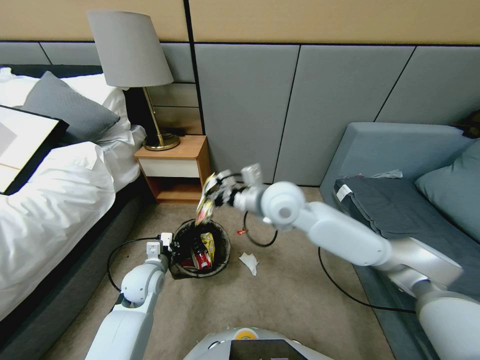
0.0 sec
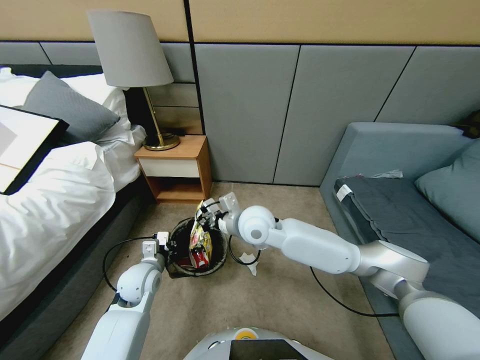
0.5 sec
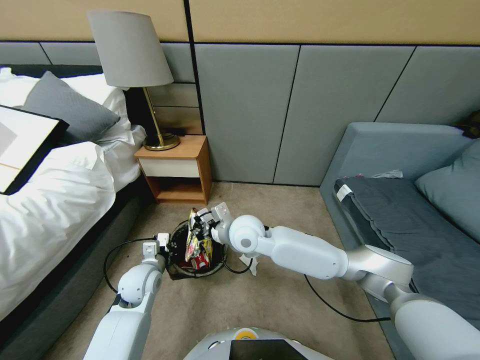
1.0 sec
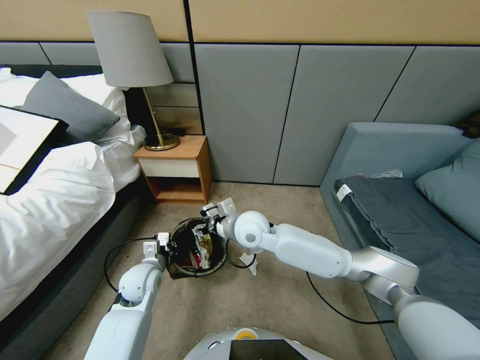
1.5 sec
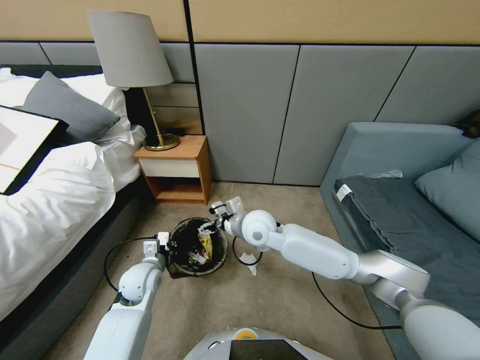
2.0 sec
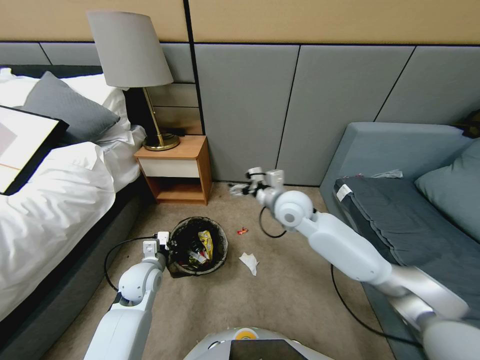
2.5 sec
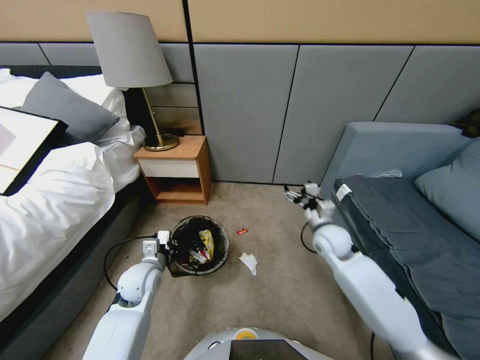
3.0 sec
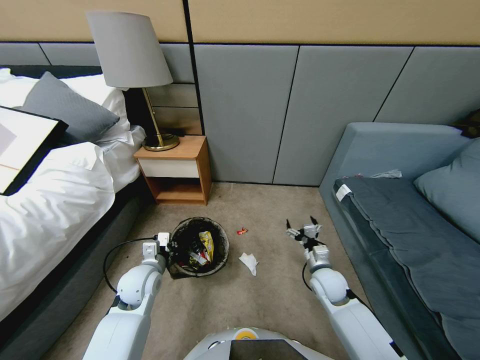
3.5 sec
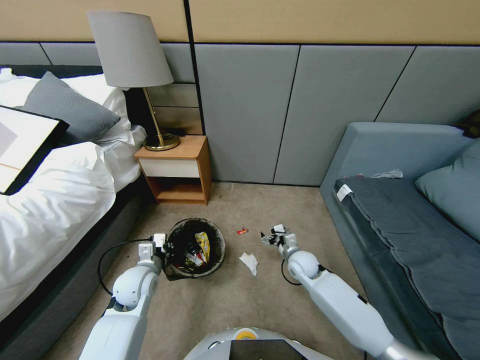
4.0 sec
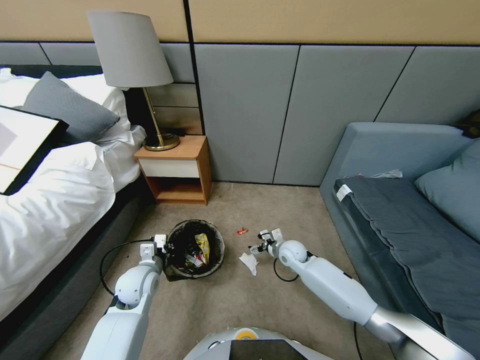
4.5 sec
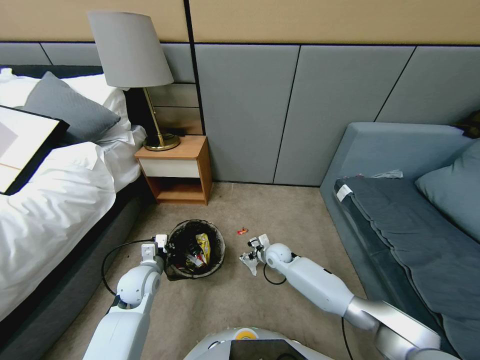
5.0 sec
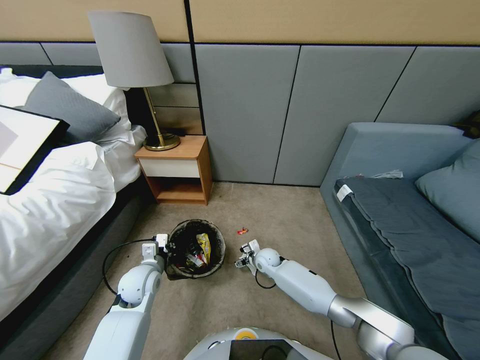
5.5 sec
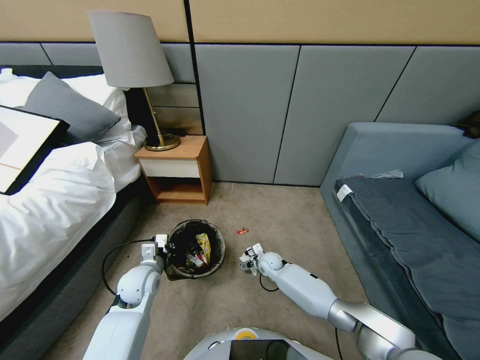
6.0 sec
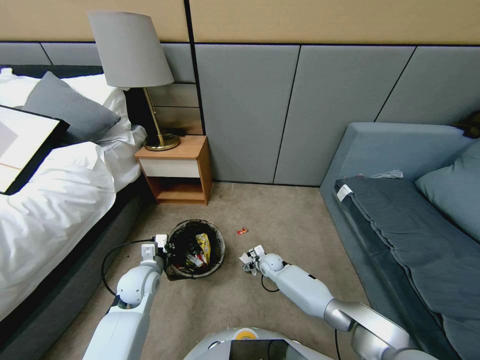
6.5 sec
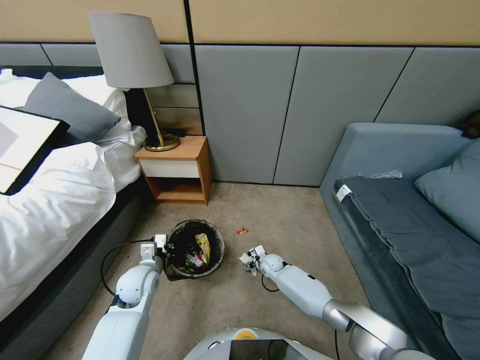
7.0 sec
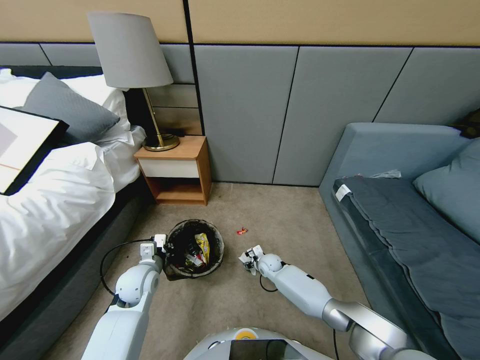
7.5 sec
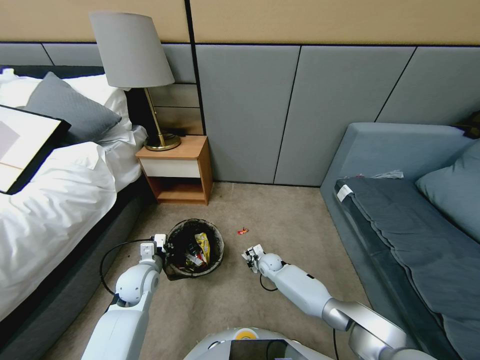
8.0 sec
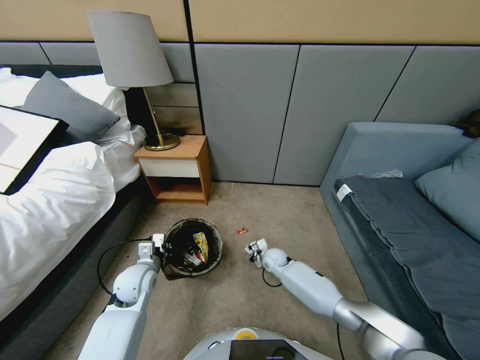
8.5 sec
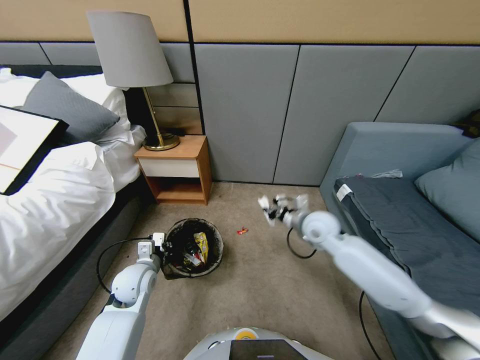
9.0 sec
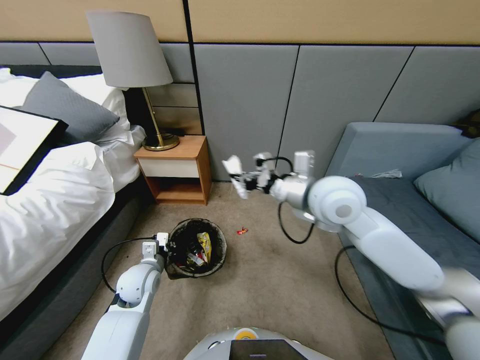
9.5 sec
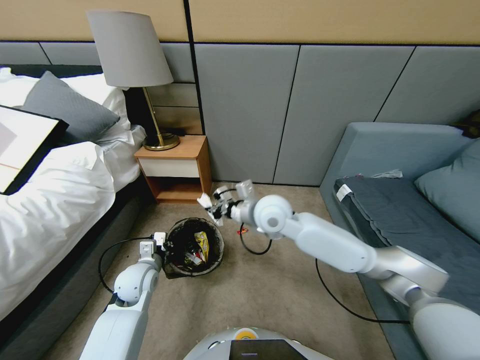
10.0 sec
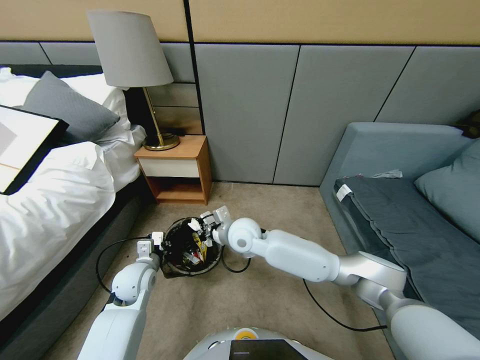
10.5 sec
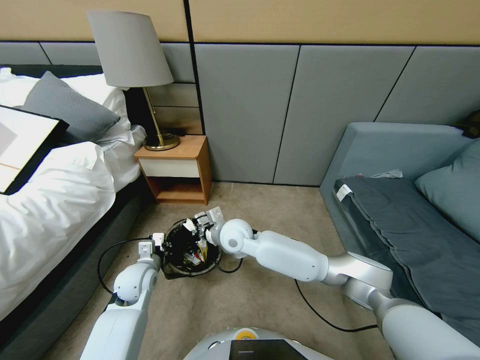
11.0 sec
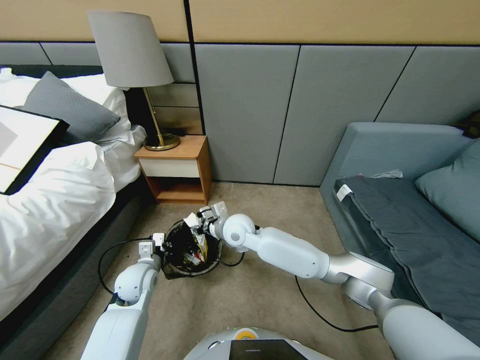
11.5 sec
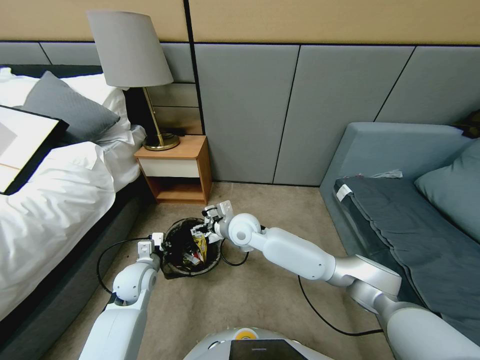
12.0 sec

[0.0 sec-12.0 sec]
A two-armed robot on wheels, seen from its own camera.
Task of the whole recording: Pick up the trash bin, then pick up the garbage from the floor and place it into the trash bin.
0.0 sec to 2.0 sec: The right gripper heads downward, covering some 10 cm, and opens its fingers.
2.0 sec to 4.0 sec: The right gripper travels downward and to the right by roughly 25 cm.
4.0 sec to 6.0 sec: The right gripper travels downward and to the left by some 15 cm.
6.0 sec to 8.0 sec: The right gripper closes.
8.0 sec to 10.0 sec: The right gripper shifts about 35 cm upward.
10.0 sec to 12.0 sec: The right gripper shifts approximately 10 cm downward and to the left, and opens its fingers.

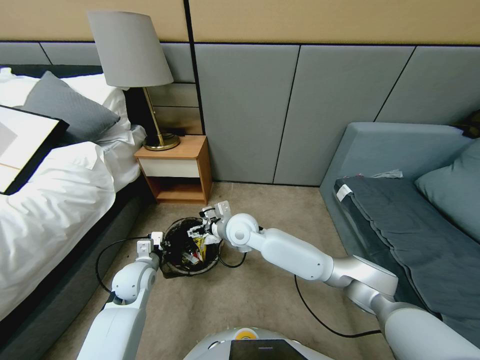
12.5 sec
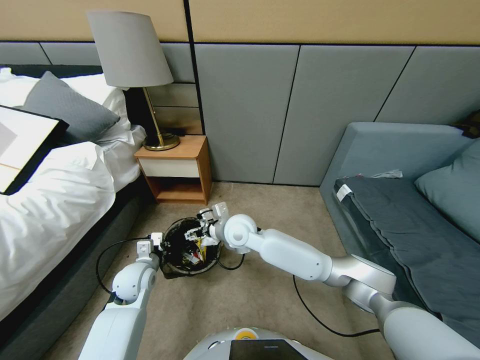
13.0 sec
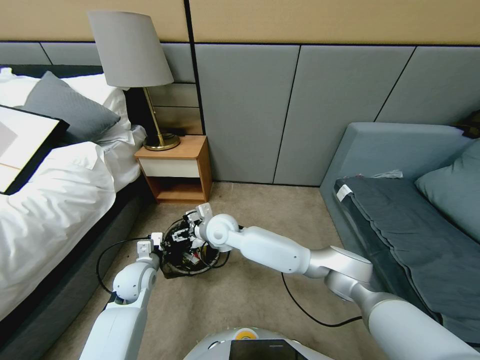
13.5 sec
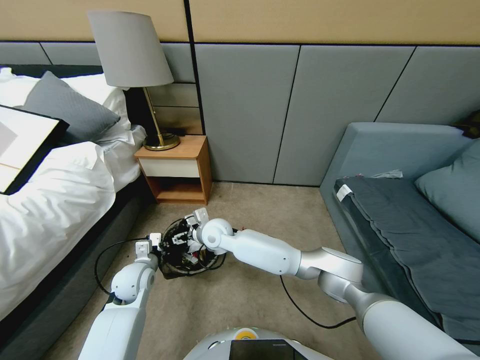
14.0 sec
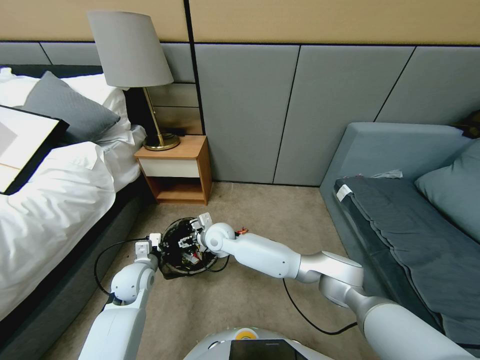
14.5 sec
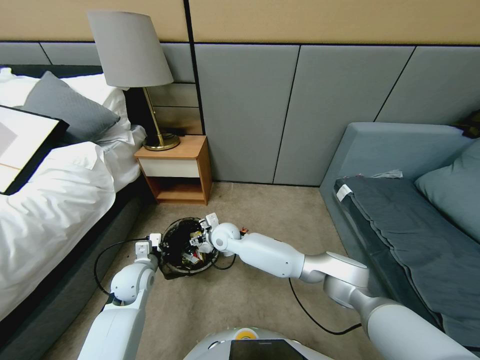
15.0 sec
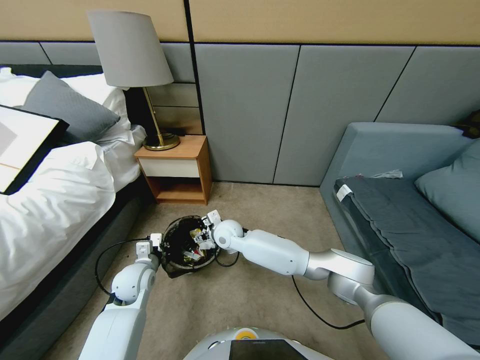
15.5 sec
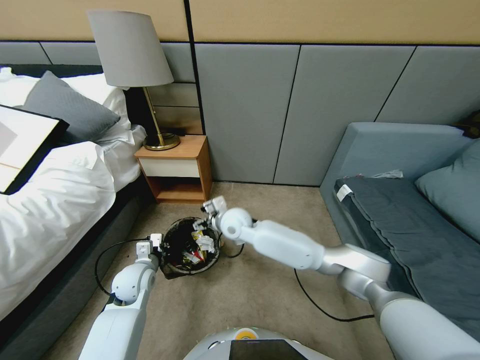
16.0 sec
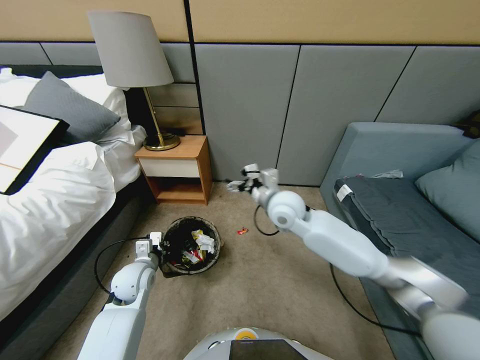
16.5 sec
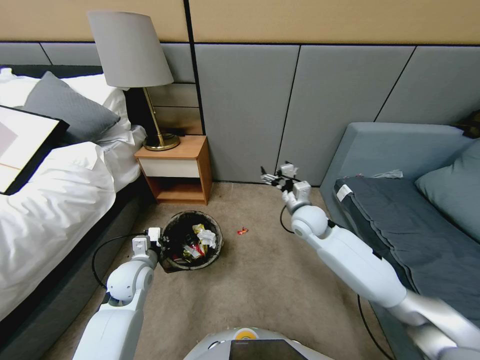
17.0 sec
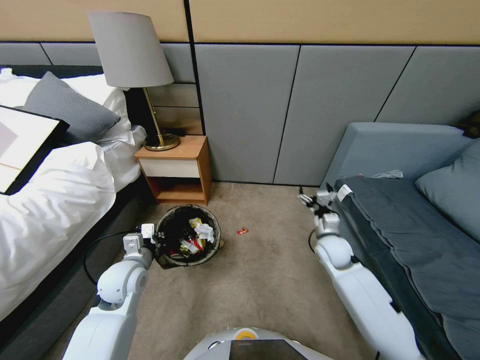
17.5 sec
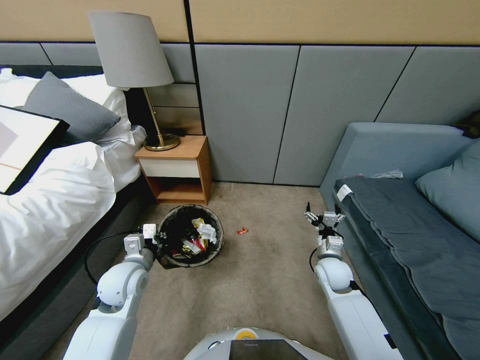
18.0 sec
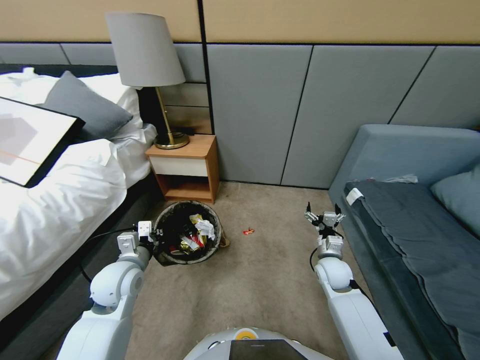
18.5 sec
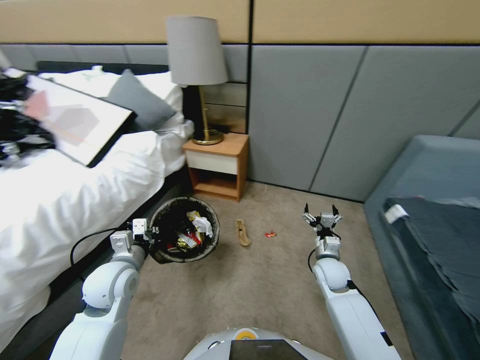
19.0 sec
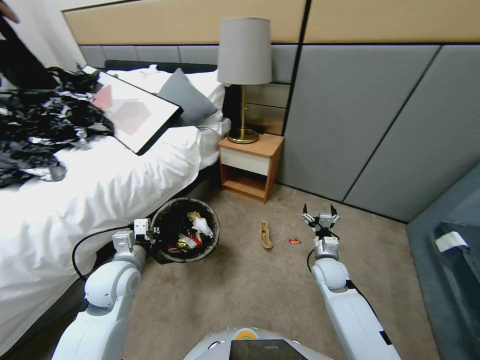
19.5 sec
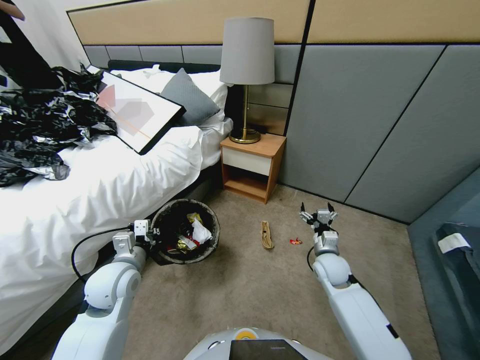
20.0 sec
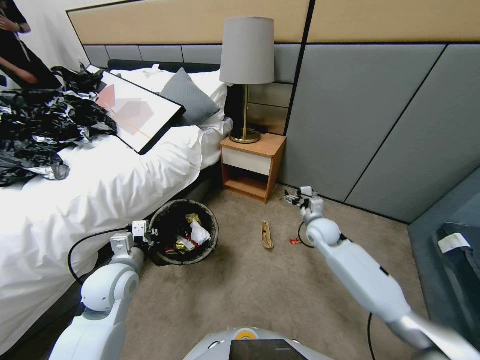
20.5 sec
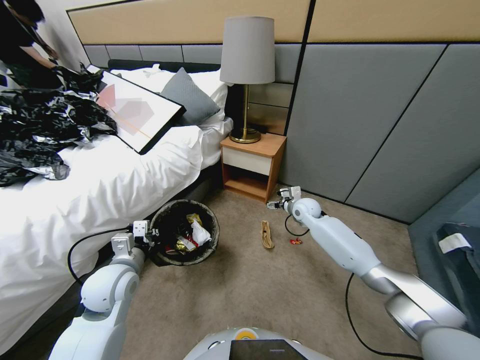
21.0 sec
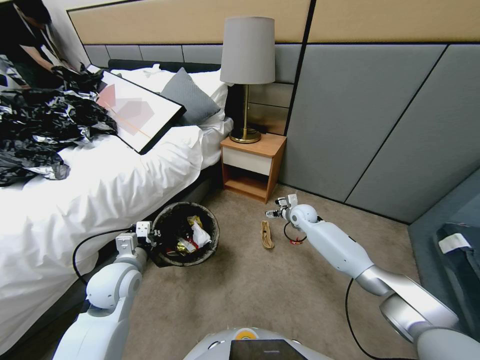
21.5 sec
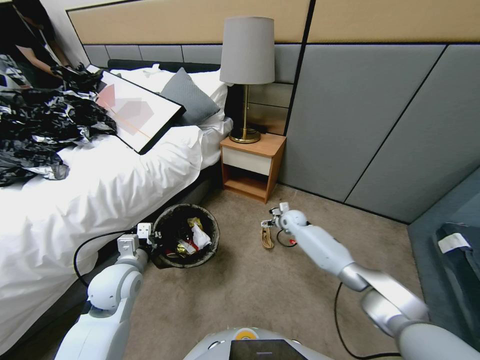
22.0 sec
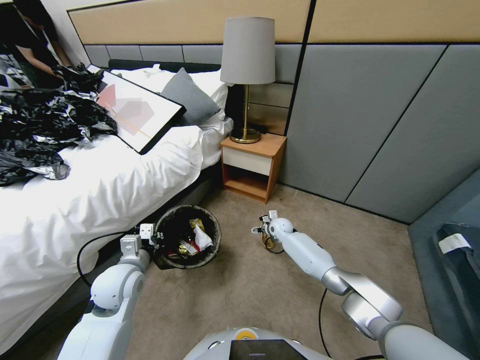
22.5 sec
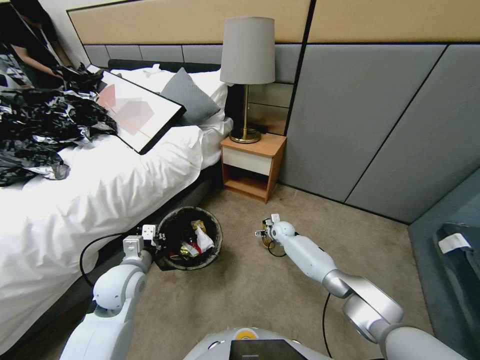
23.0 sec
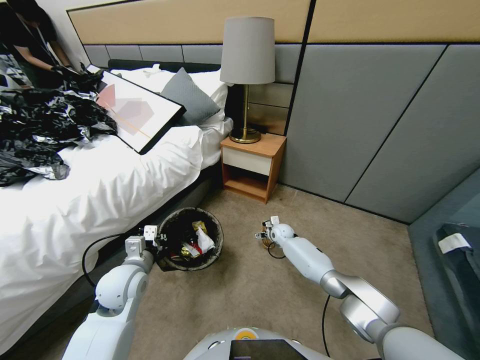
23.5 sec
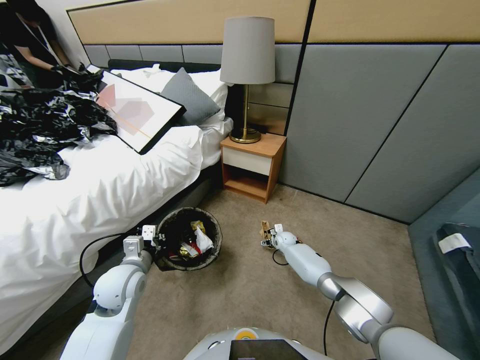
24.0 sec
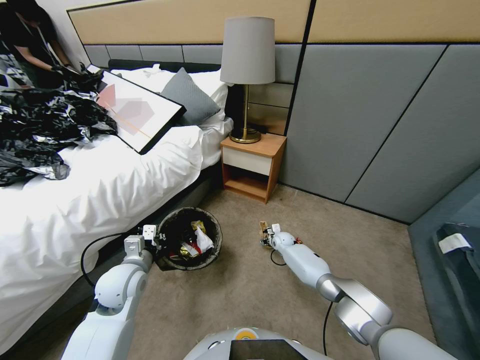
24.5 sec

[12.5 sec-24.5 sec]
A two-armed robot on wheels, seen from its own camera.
Task of the whole recording: Pick up the trash bin, then pick up the garbage from the floor and place it into the trash bin.
12.5 sec to 14.5 sec: The right gripper shifts approximately 10 cm downward and to the left.
14.5 sec to 16.5 sec: The right gripper shifts some 25 cm to the right and upward.
16.5 sec to 18.5 sec: The left gripper goes roughly 5 cm upward. The right gripper is displaced downward, to the right and backward by some 25 cm.
18.5 sec to 20.5 sec: The right gripper moves forward and upward, some 15 cm.
20.5 sec to 22.5 sec: The right gripper goes roughly 20 cm downward, forward and to the left.
22.5 sec to 24.5 sec: The right gripper goes about 10 cm downward, and closes.

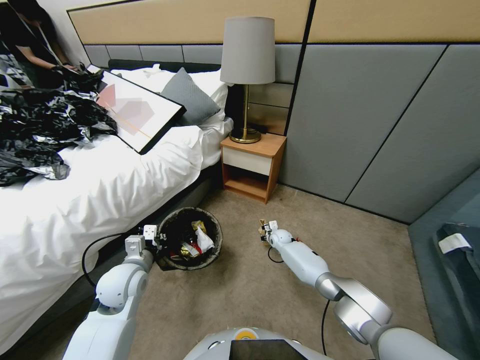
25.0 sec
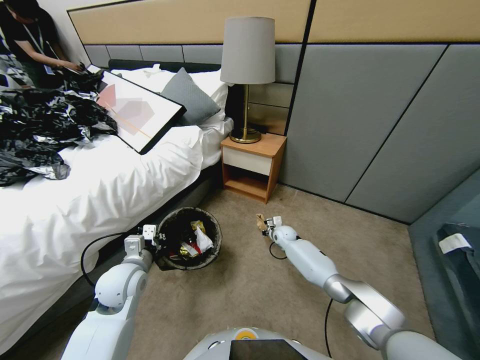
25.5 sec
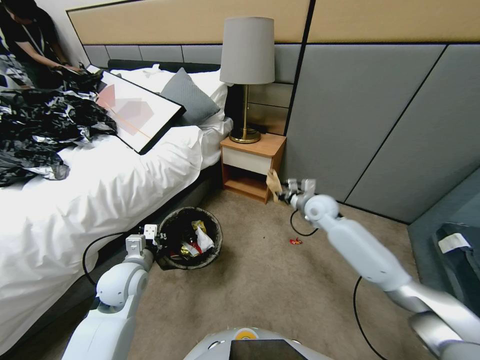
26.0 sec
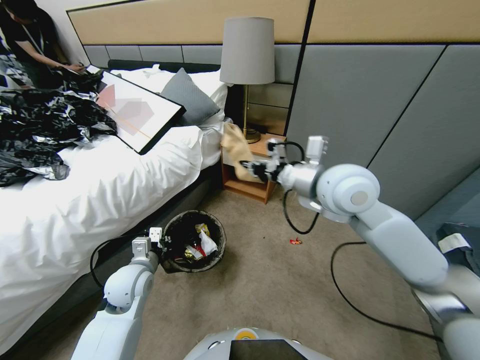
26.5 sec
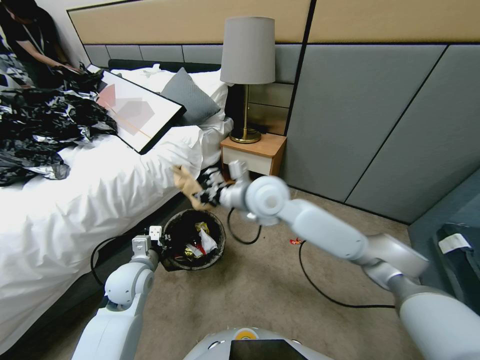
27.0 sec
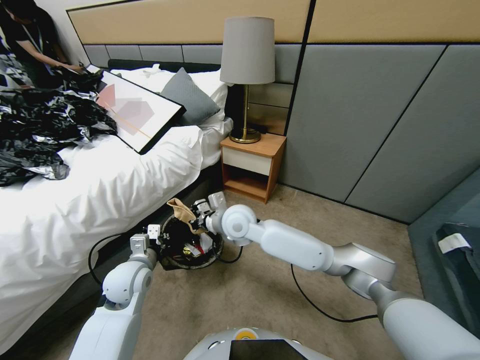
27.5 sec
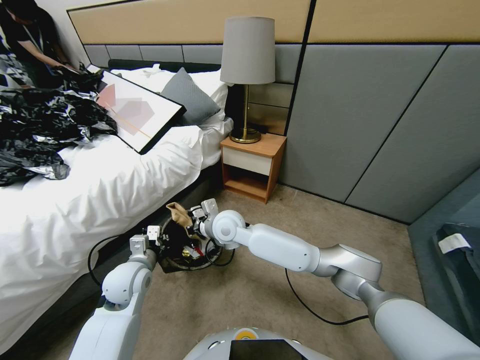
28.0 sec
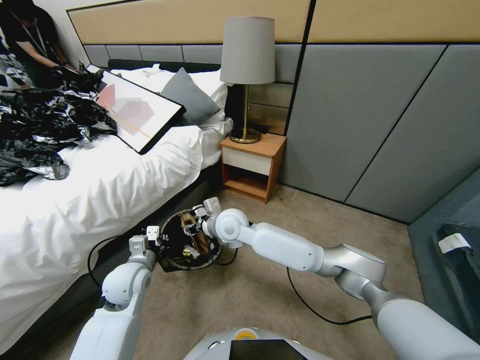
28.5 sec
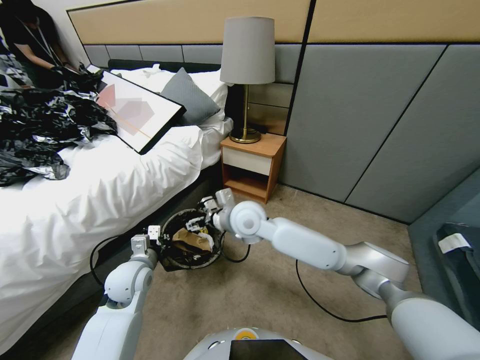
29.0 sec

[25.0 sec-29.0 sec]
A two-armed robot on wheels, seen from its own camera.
Task of the whole recording: Pick up the trash bin, then pick up the garbage from the floor and place it into the trash bin.
25.0 sec to 27.0 sec: The right gripper shifts some 40 cm upward.
27.0 sec to 29.0 sec: The right gripper opens its fingers.
